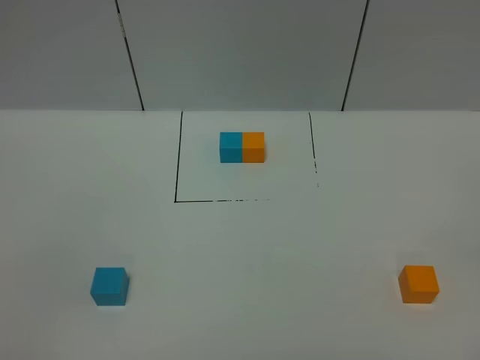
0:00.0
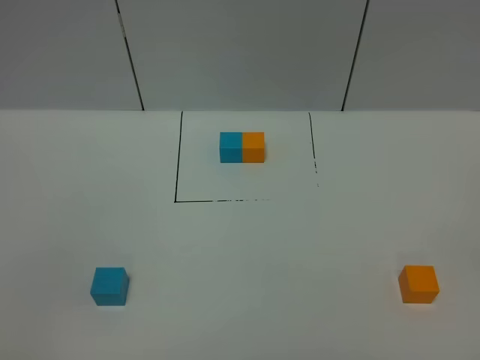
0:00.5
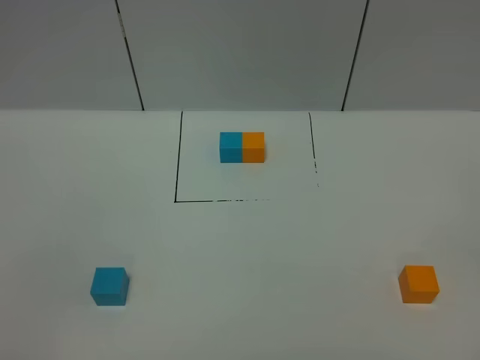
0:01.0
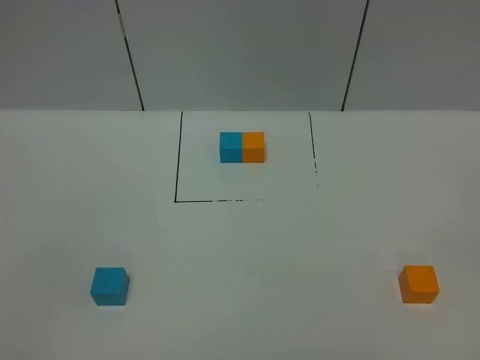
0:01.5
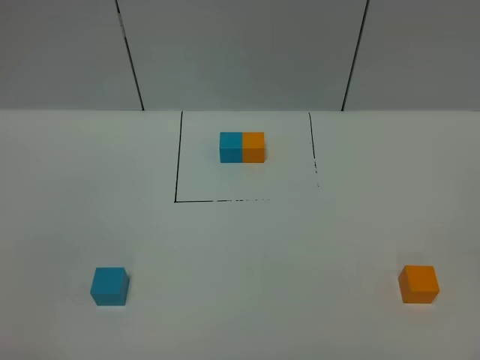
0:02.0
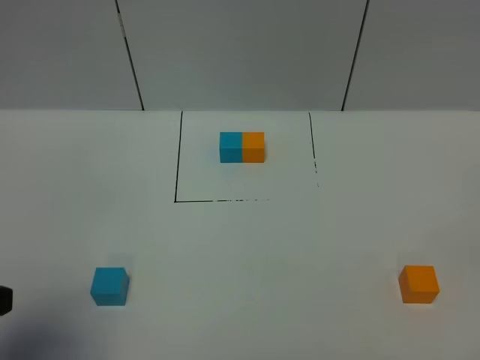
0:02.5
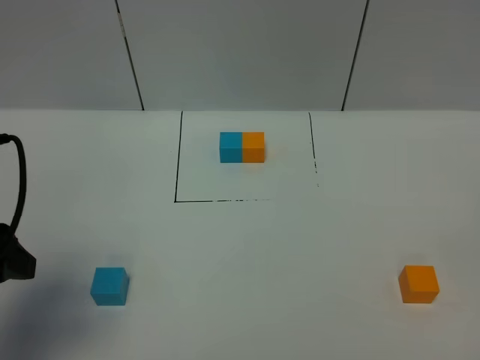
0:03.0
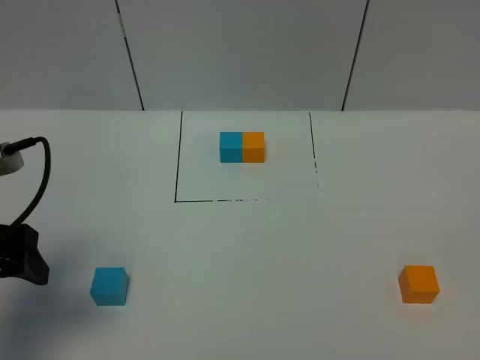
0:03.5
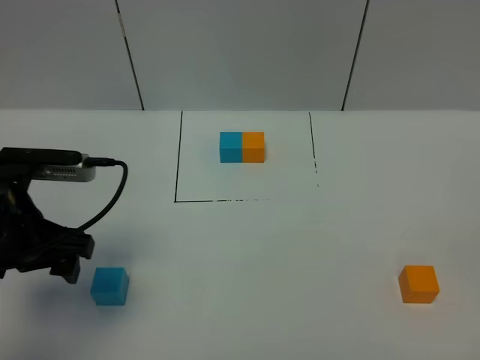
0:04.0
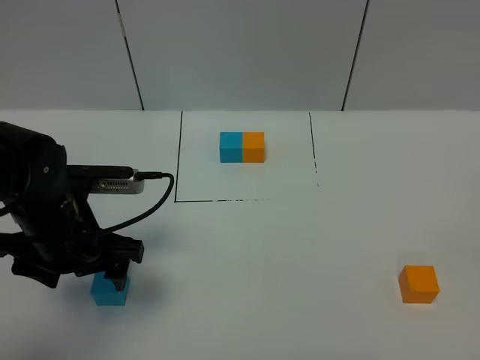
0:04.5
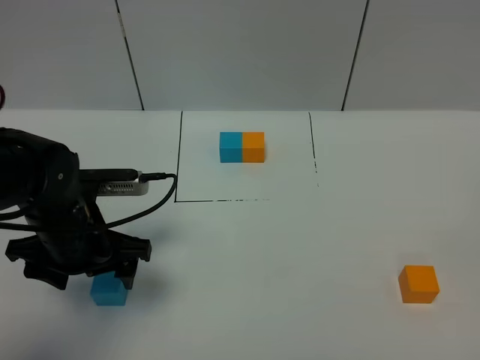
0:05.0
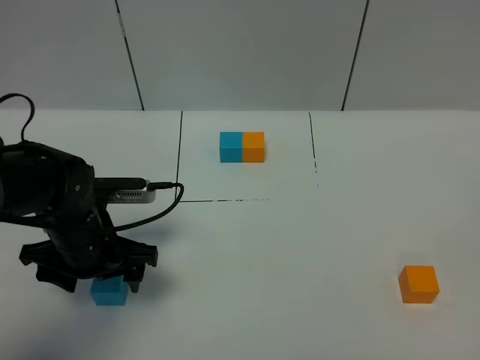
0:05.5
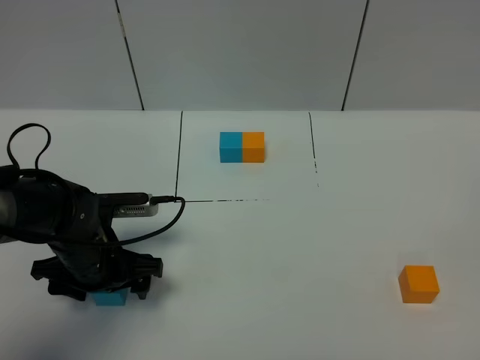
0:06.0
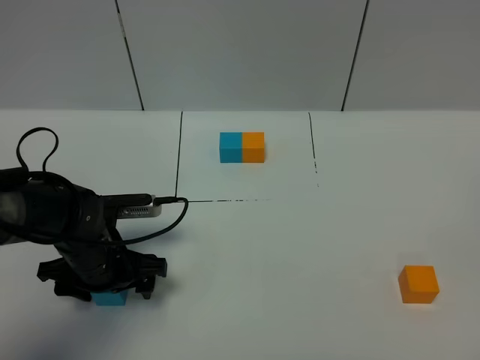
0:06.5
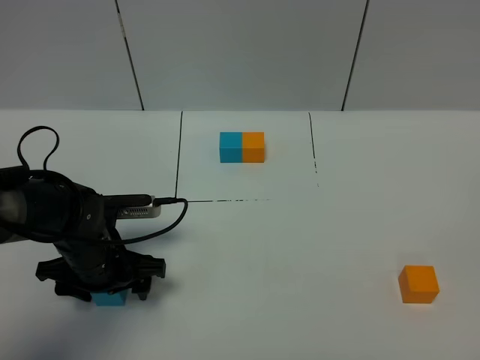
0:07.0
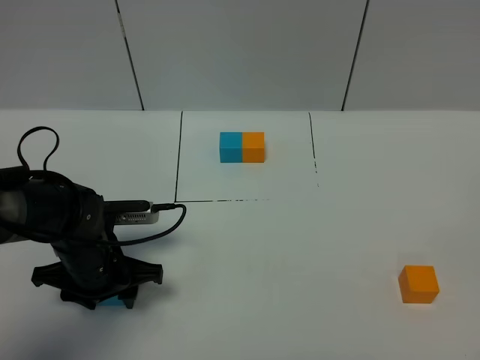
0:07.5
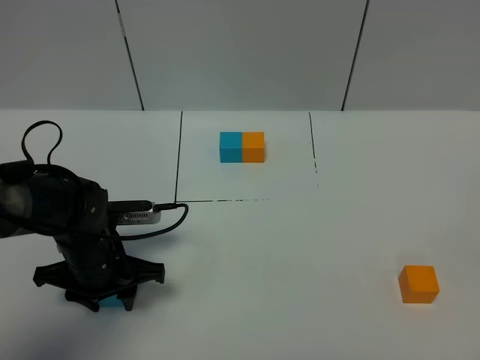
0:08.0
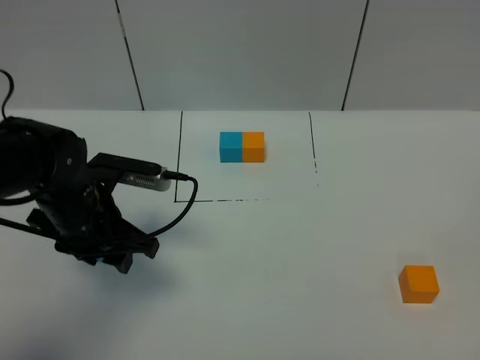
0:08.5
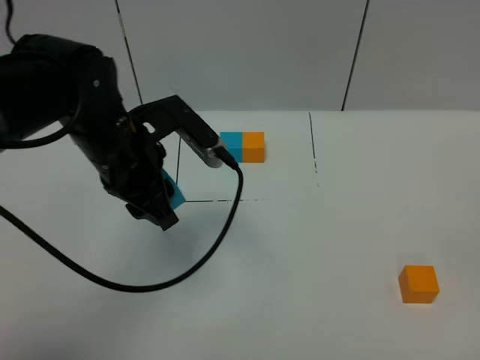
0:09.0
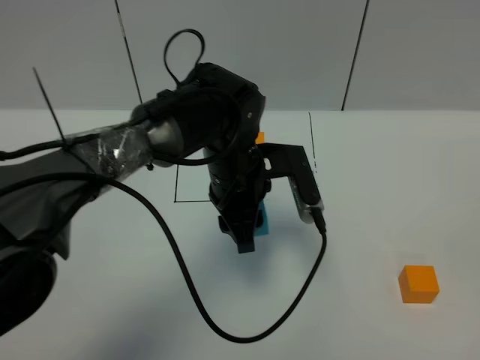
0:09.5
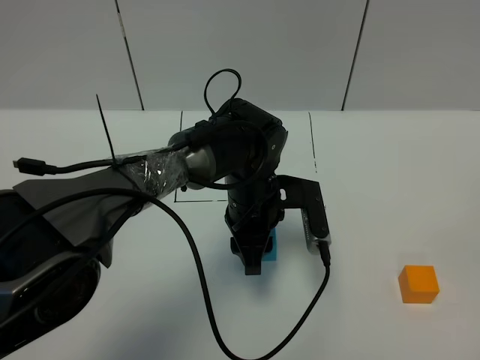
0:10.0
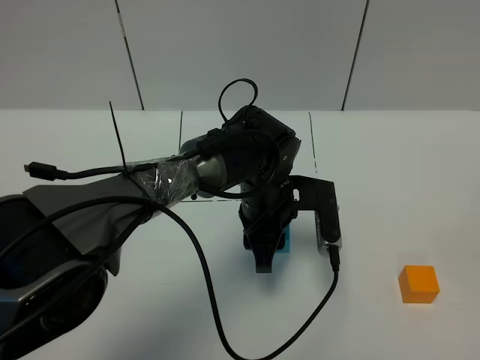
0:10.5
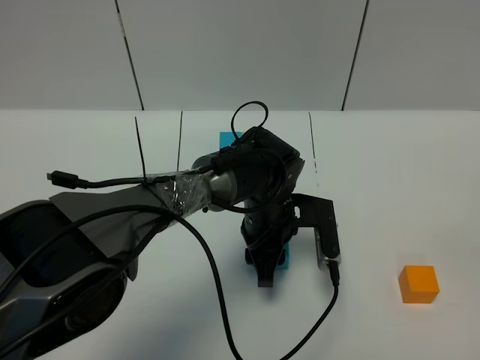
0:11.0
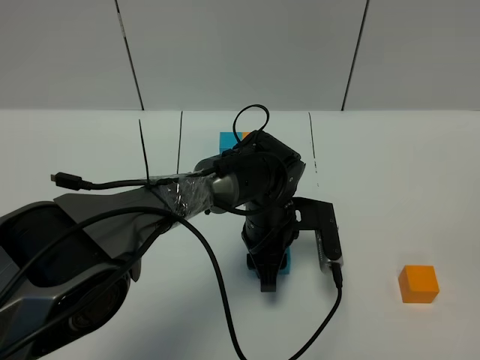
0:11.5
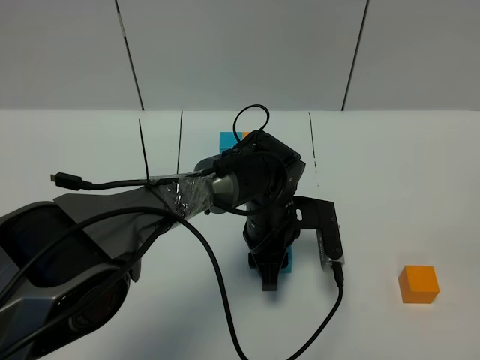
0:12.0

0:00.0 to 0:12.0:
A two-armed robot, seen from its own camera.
Task of the whole recording: According to the building block template in front, assemble the scattered blocks together.
0:02.0 to 0:04.0: The left gripper shifts approximately 25 cm forward.
0:04.0 to 0:06.0: The left gripper shifts about 10 cm downward.
0:06.0 to 0:08.0: The left gripper closes.
0:08.0 to 0:10.0: The left gripper travels to the right by about 20 cm.

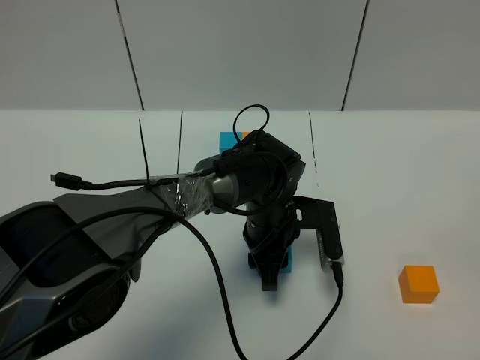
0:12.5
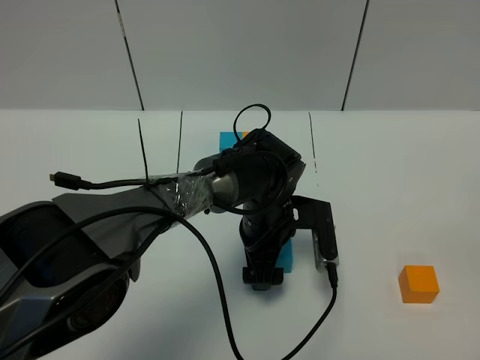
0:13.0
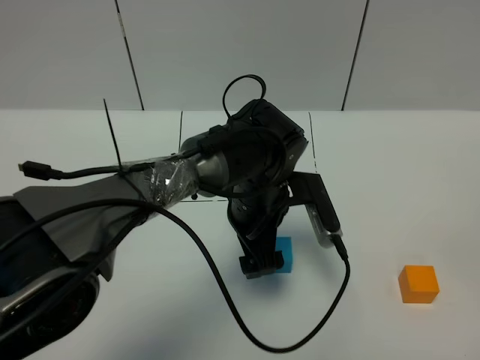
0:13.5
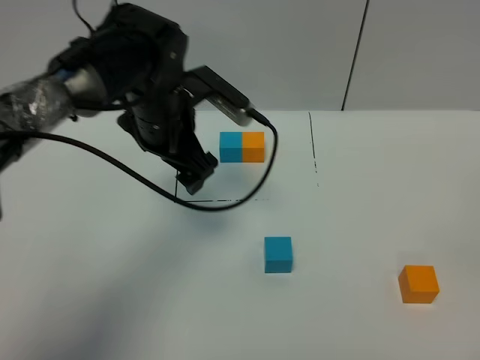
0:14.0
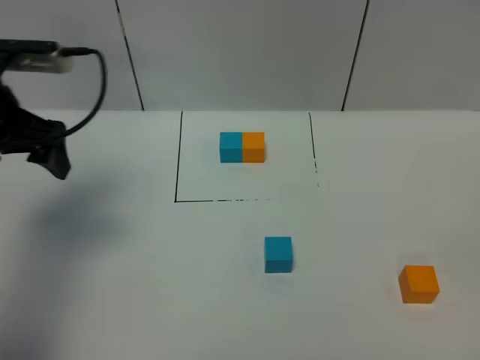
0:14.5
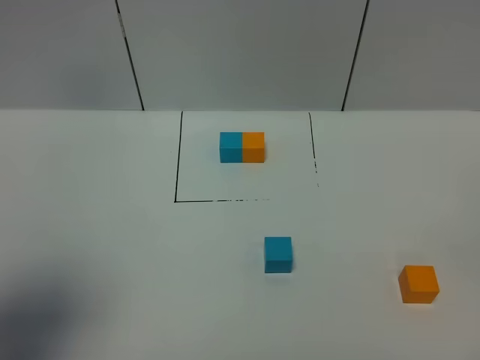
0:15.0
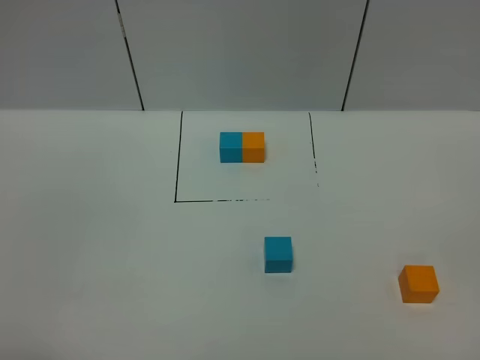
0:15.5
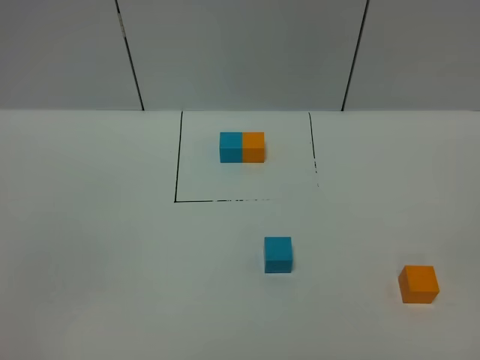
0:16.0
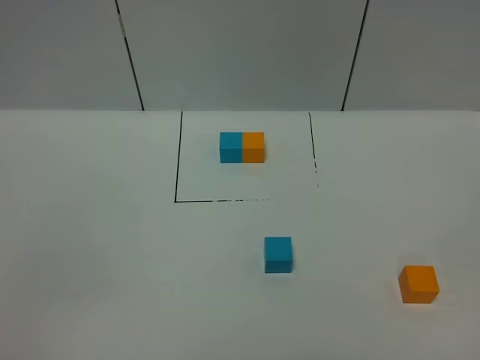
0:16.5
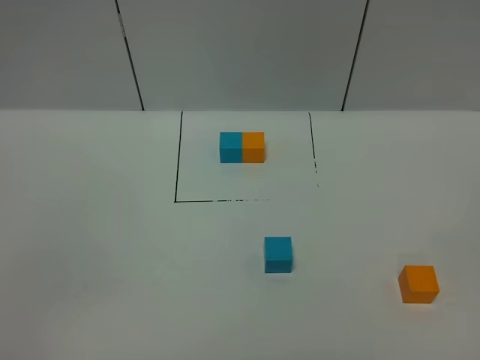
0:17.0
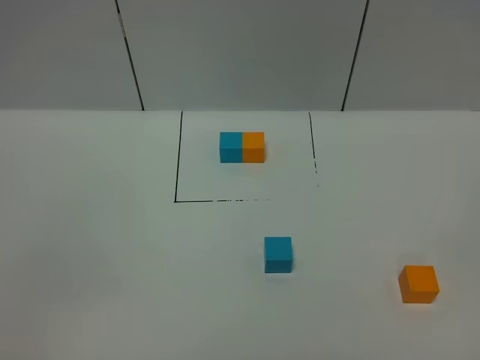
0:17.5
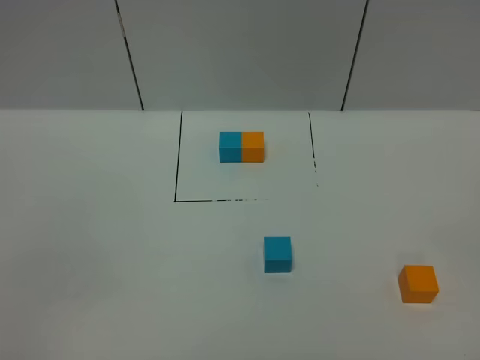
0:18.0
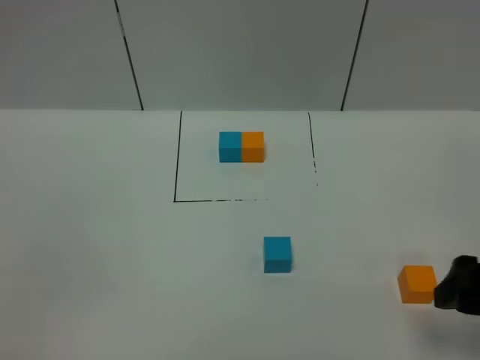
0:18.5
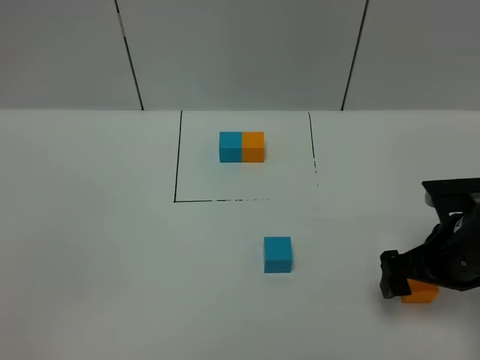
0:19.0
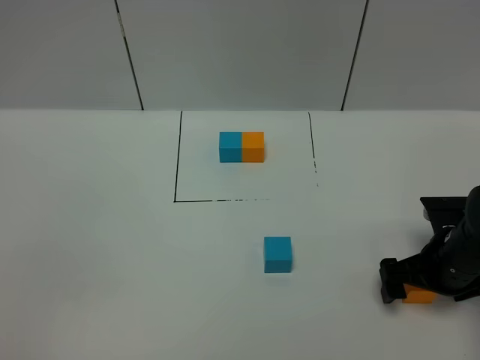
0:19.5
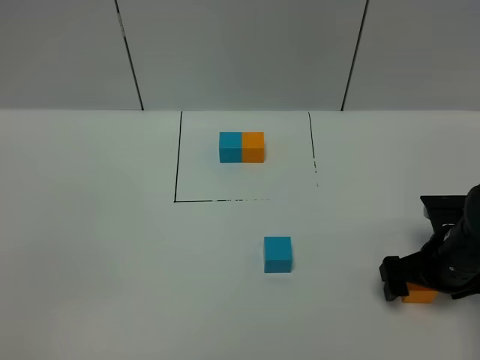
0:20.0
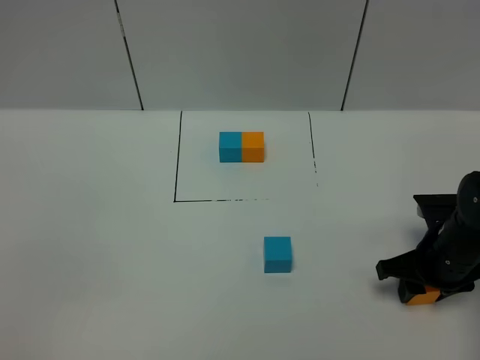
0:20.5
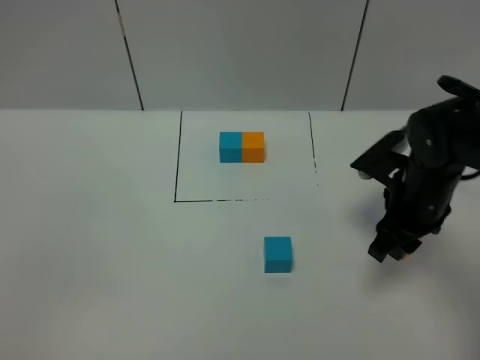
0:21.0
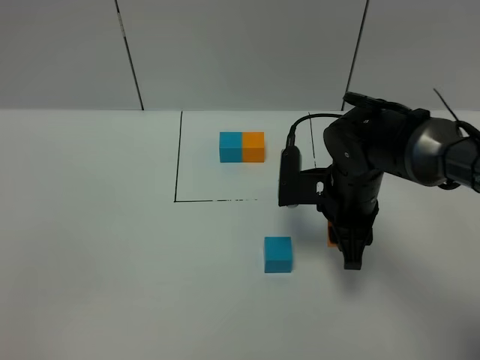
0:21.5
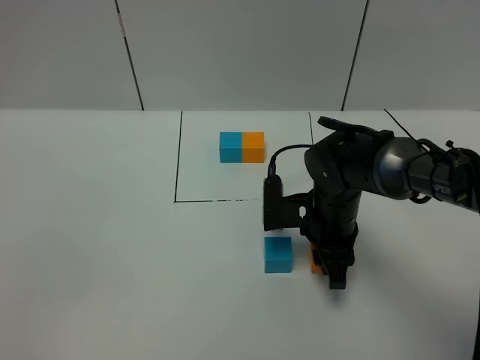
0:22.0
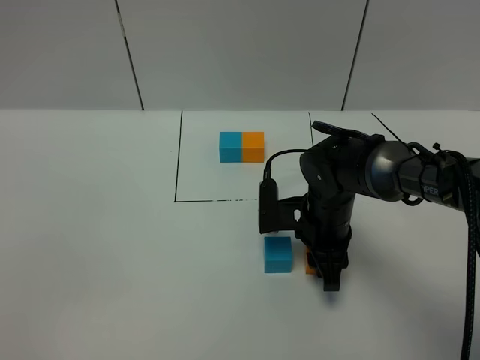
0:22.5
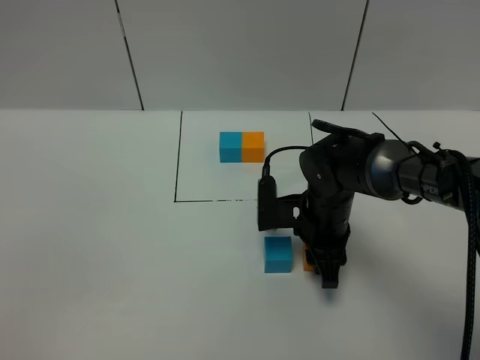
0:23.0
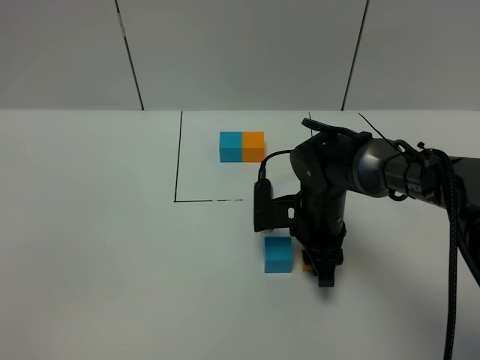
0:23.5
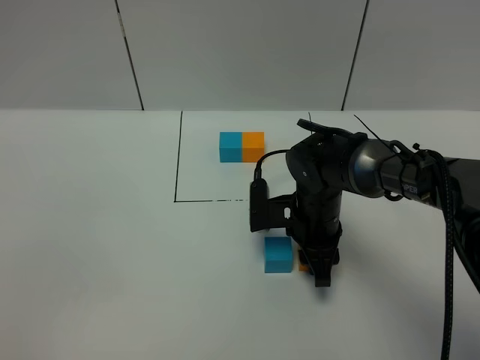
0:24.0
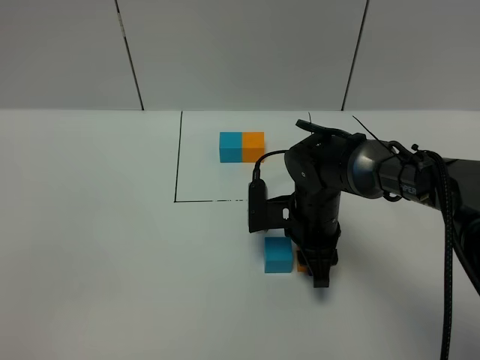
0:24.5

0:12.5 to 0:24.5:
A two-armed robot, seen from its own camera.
Task of the whole recording: According to the building block template in front, assemble the scattered blocks together.
0:12.5 to 0:14.5: The left gripper travels to the left and upward by about 35 cm, and opens its fingers.
0:14.5 to 0:16.5: The left gripper travels backward by roughly 35 cm.
0:16.5 to 0:18.5: The right gripper is displaced forward by approximately 20 cm.
0:18.5 to 0:20.5: The right gripper is displaced downward and forward by some 20 cm, and closes.
0:20.5 to 0:22.5: The right gripper shifts roughly 15 cm to the left.
0:22.5 to 0:24.5: There are only small adjustments of the grippers.

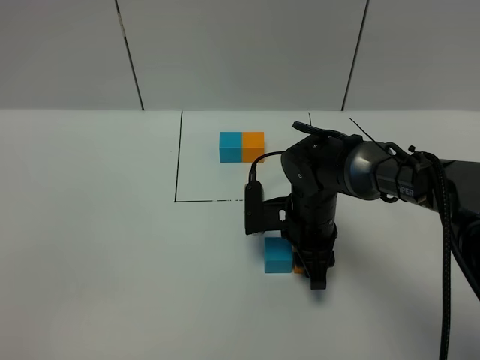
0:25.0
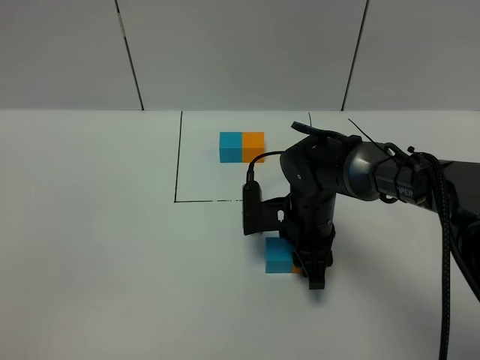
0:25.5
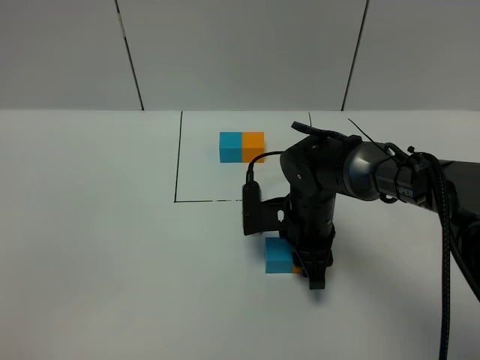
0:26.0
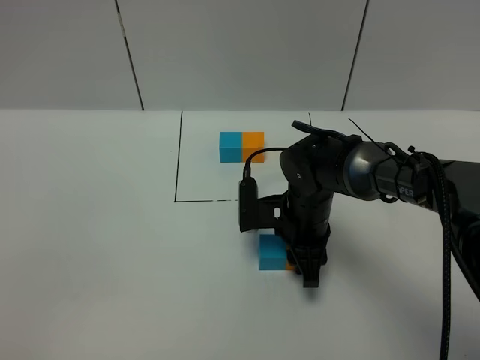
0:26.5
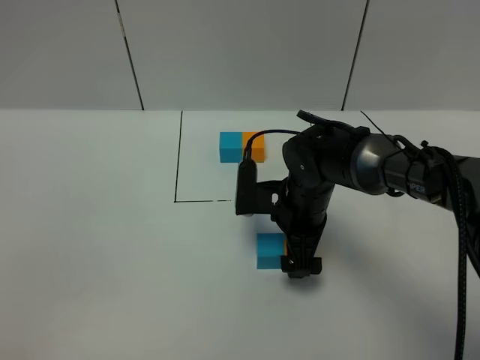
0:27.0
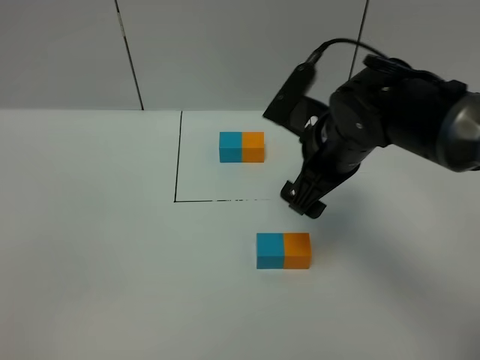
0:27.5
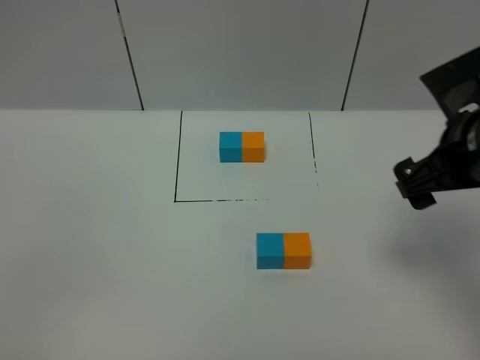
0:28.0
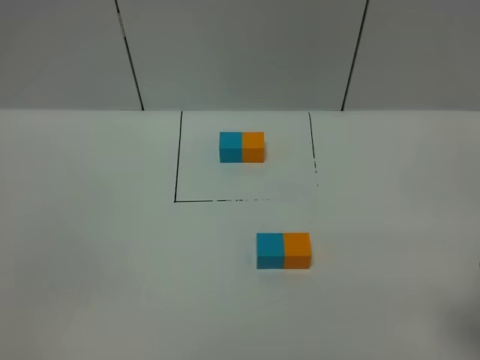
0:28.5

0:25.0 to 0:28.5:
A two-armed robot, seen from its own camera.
Task of the whole recording: According to the building block template in front, assemble the scattered blocks together.
0:25.0 to 0:27.0: The right gripper opens.
0:27.0 to 0:28.5: The right gripper is displaced to the right, backward and upward by roughly 35 cm.
